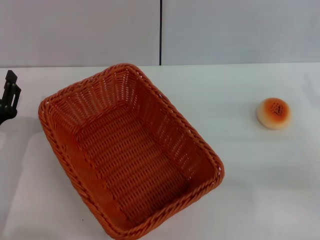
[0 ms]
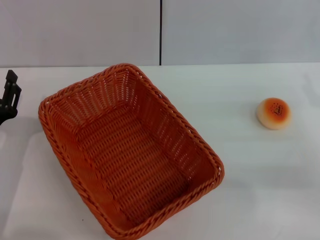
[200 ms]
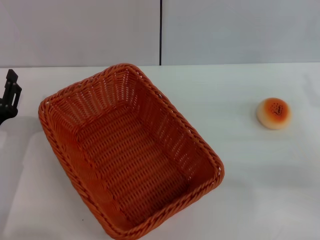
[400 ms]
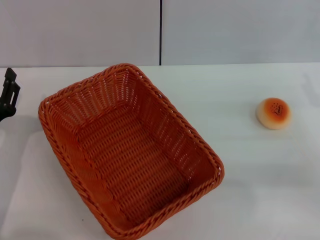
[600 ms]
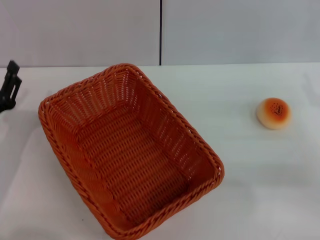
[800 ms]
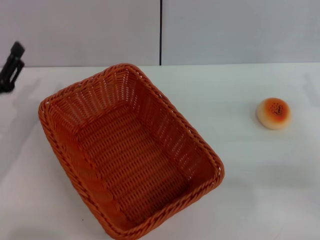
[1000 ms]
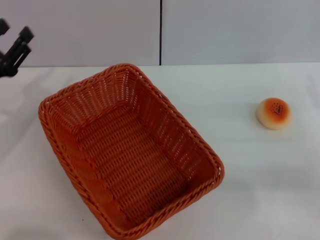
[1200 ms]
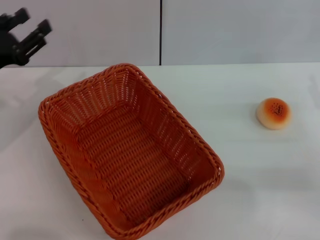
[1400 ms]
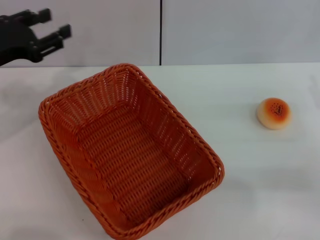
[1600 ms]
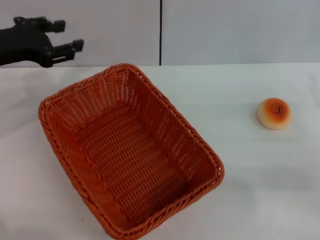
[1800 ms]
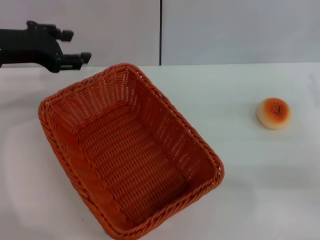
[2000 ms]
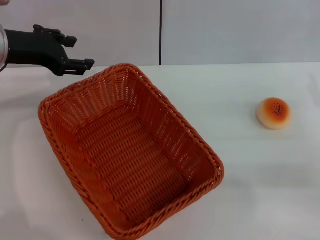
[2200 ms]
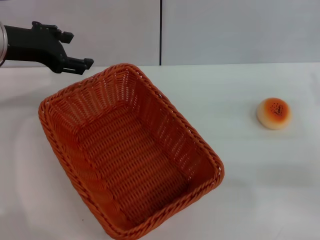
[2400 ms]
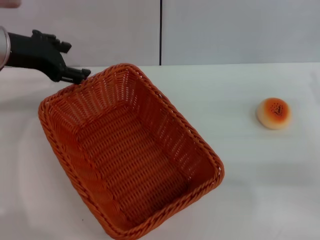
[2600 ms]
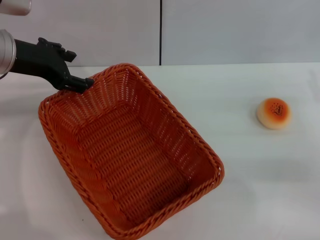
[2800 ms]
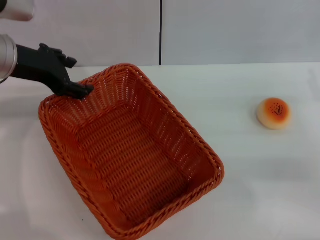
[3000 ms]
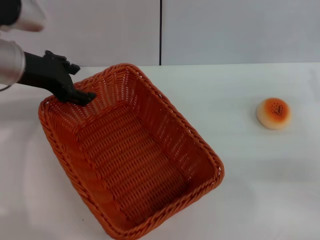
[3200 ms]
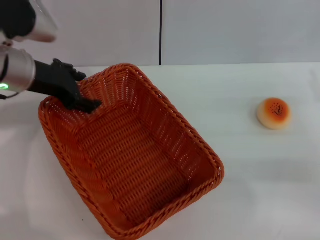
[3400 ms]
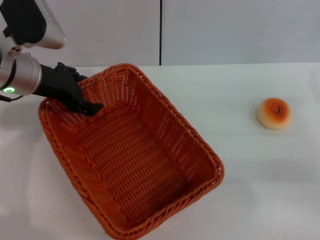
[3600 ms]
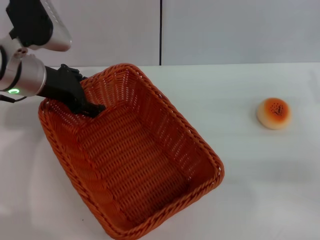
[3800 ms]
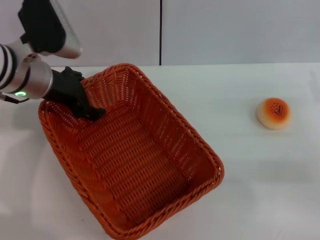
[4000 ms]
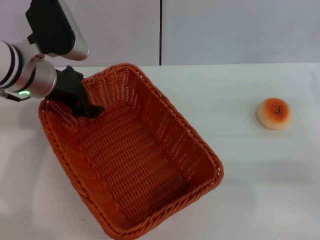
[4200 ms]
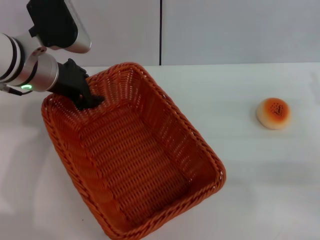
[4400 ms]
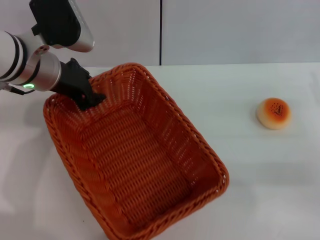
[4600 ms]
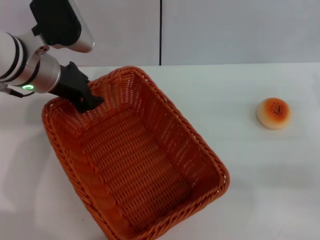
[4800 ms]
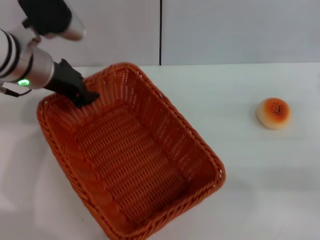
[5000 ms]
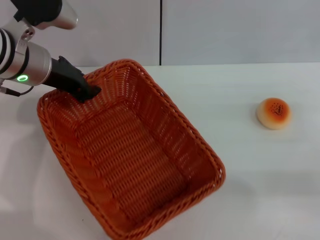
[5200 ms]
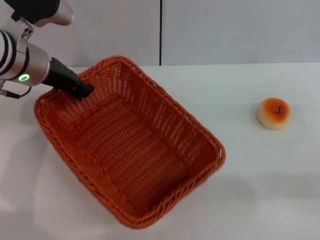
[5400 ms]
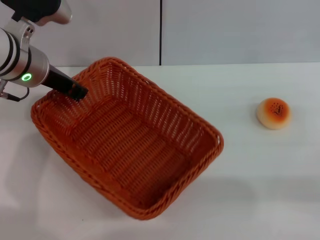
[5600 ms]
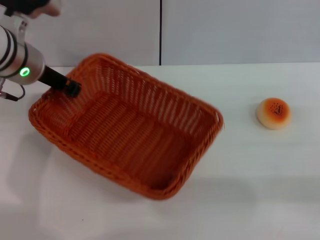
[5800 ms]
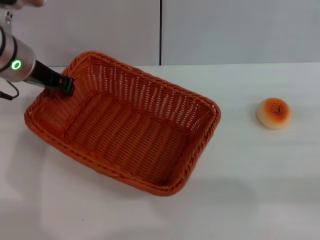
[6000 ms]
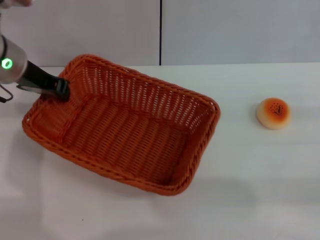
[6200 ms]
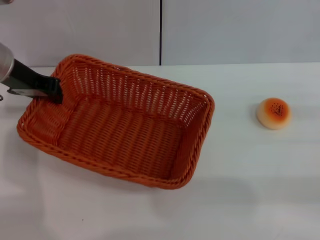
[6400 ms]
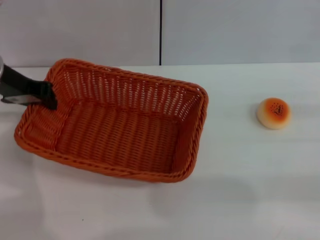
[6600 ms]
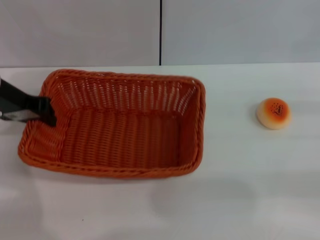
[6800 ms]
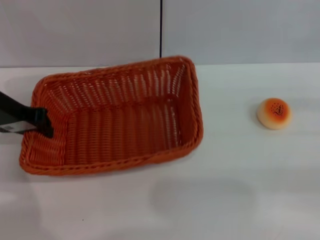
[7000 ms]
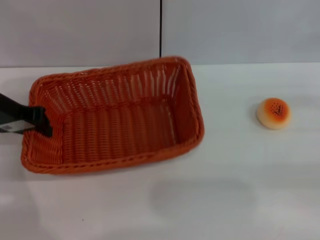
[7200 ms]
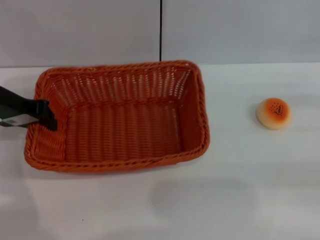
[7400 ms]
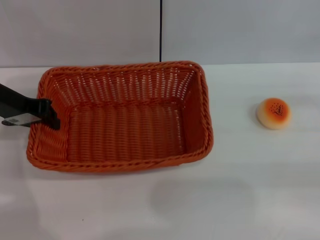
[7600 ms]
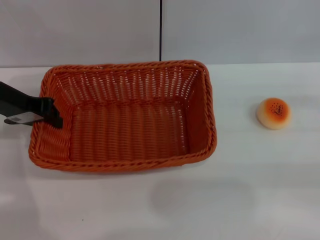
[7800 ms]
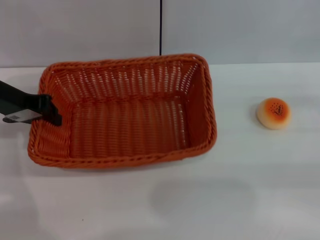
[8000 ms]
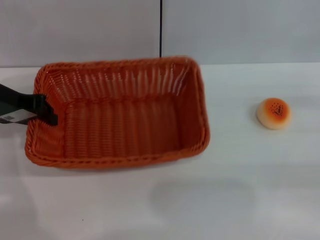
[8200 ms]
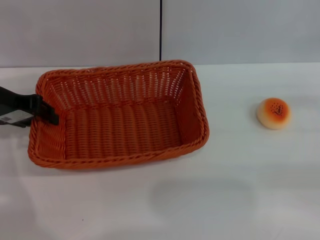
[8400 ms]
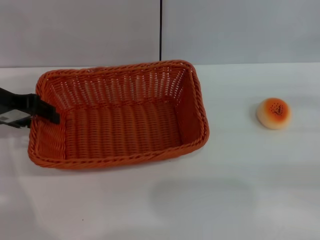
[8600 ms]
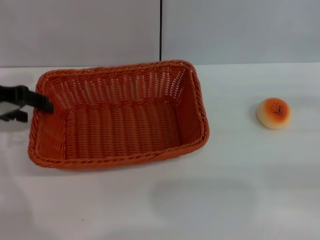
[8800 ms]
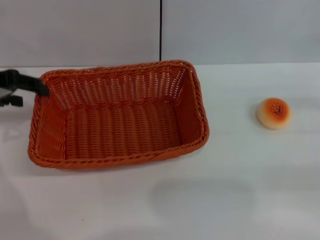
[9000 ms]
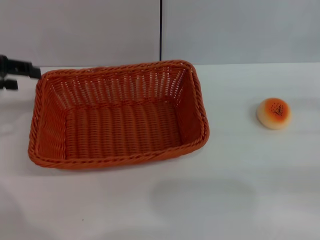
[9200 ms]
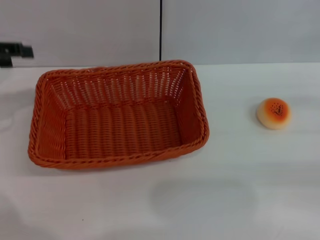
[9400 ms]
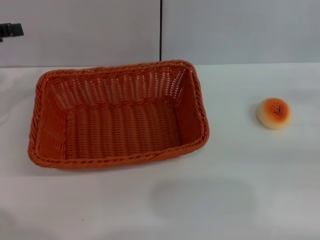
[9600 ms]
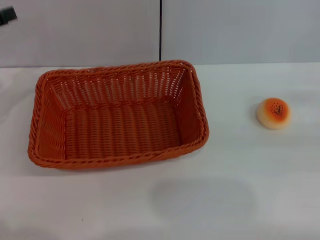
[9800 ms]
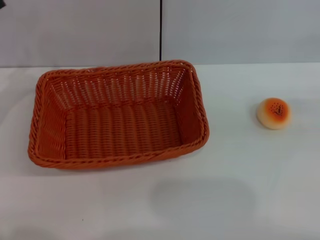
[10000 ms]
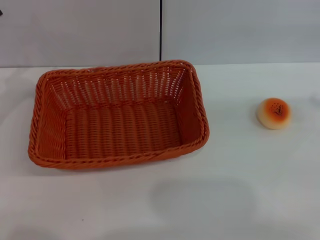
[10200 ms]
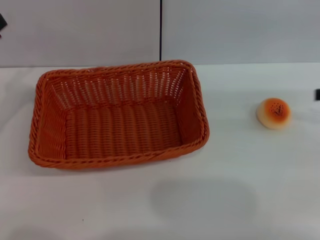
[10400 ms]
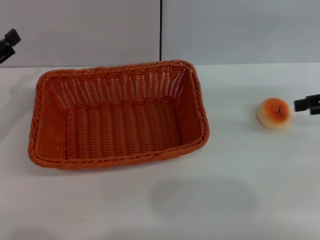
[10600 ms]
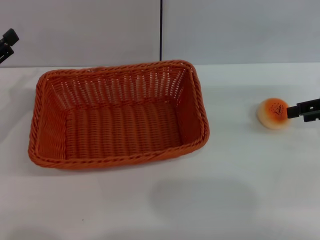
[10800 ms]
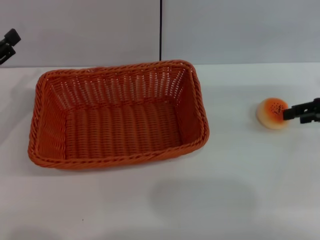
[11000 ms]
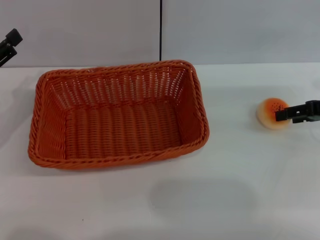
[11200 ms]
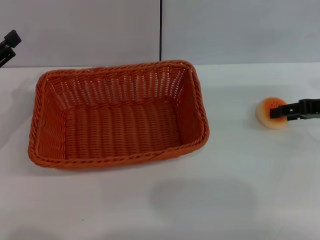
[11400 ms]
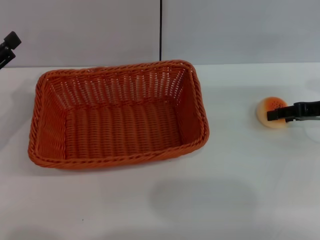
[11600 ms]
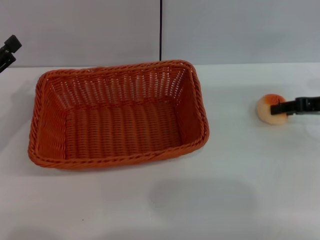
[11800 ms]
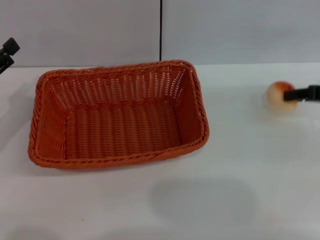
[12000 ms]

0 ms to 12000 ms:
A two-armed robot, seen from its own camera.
Step, 0 ms to 8800 ms: Move the basket to the center of view with the left gripper.
Step, 9000 ms to 12000 ms: Pick up the egg yolk pastry with the right gripper.
0 ms to 1600 ms: The left gripper shifts about 15 cm upward and forward.
1600 ms to 3000 ms: The left gripper heads to the right, covering roughly 5 cm.
3000 ms to 4400 ms: The left gripper ends up approximately 5 cm from where it was.
4400 ms to 6000 ms: The left gripper closes its fingers.
6000 ms to 7600 ms: The left gripper shifts some 5 cm to the left.
7600 ms to 9000 ms: The left gripper shifts about 5 cm to the left, and opens its fingers.
9000 ms to 10400 ms: The left gripper goes roughly 10 cm downward and backward.
10400 ms to 12000 ms: The right gripper goes about 5 cm downward, and closes up.

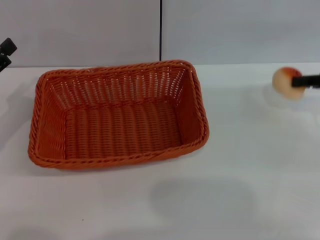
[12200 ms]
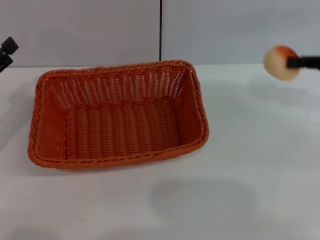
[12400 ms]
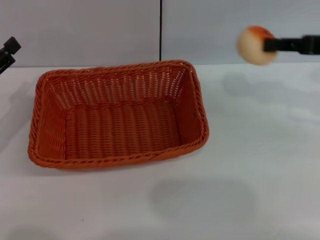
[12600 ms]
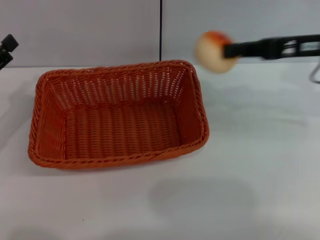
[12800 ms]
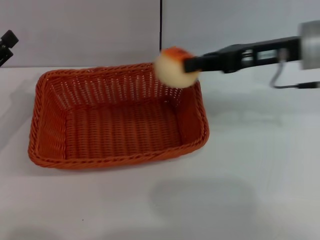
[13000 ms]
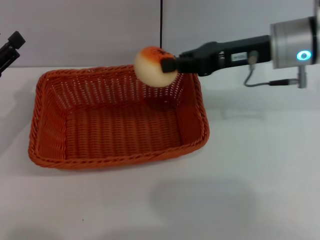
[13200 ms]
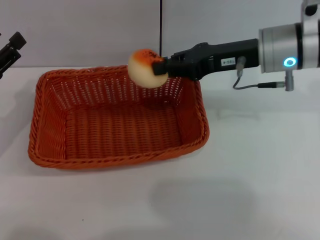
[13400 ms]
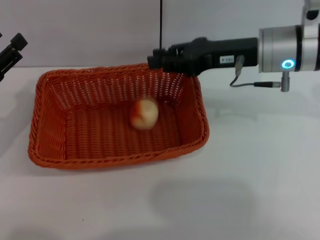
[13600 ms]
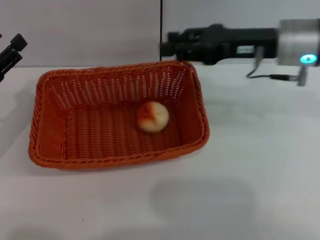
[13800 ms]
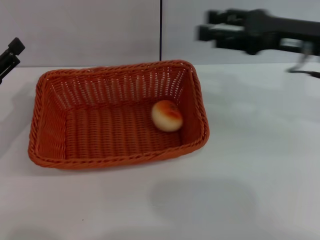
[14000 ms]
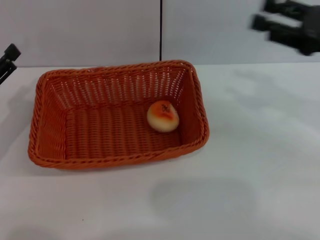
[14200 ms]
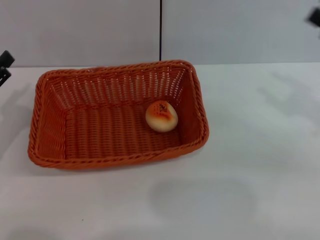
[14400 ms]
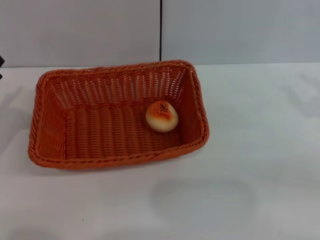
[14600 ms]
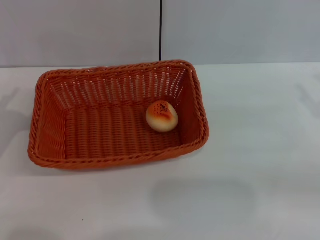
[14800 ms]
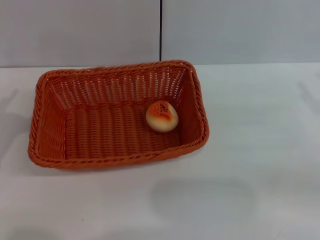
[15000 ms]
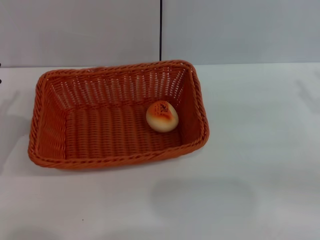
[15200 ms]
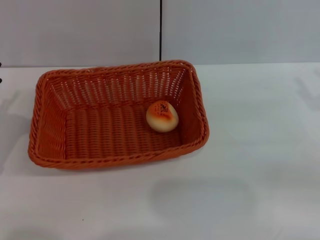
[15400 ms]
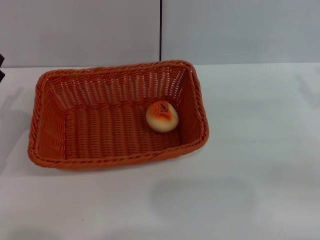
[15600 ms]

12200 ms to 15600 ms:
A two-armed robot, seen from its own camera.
Step, 12200 ms to 13800 ms: Place the egg yolk pastry into the basket with the right gripper.
12200 ms to 13800 ms: The right gripper goes about 15 cm to the left.
13800 ms to 15600 ms: The left gripper changes place by about 5 cm; the right gripper goes approximately 20 cm to the right, backward and downward, and opens its fingers.

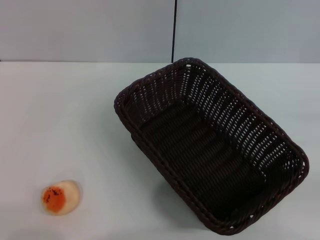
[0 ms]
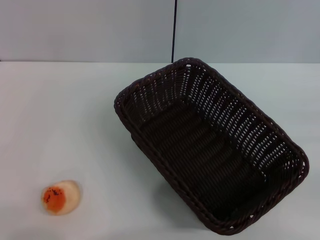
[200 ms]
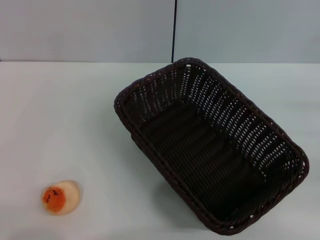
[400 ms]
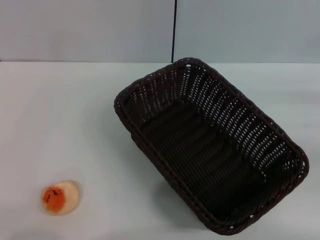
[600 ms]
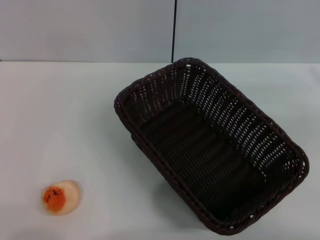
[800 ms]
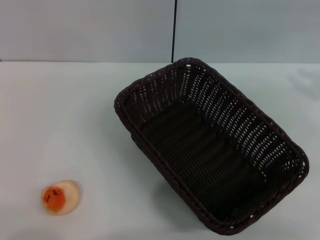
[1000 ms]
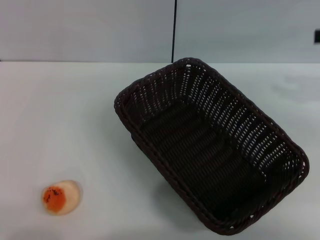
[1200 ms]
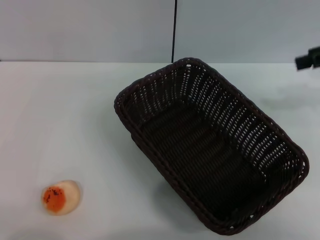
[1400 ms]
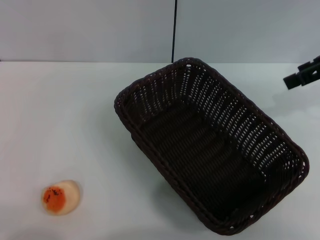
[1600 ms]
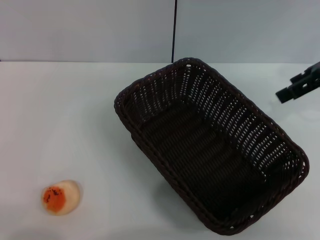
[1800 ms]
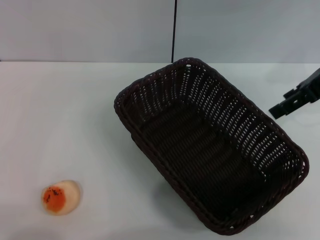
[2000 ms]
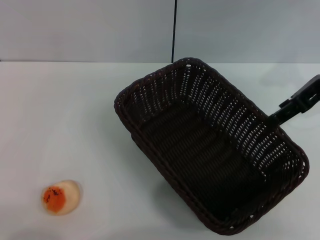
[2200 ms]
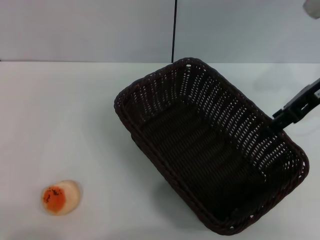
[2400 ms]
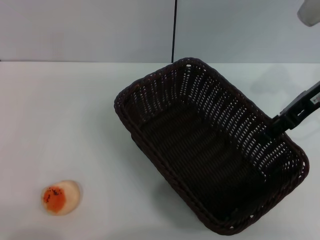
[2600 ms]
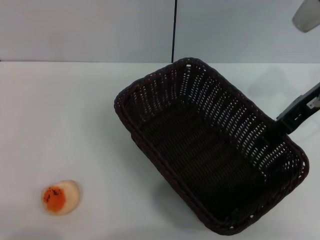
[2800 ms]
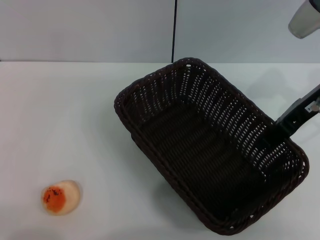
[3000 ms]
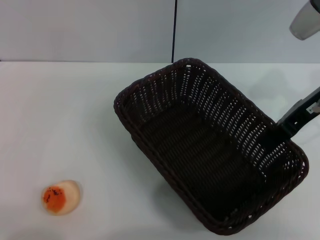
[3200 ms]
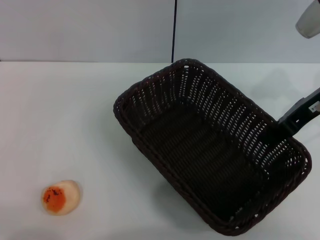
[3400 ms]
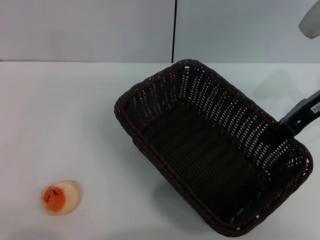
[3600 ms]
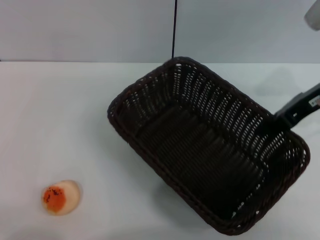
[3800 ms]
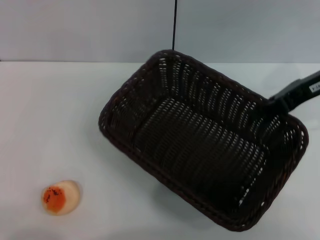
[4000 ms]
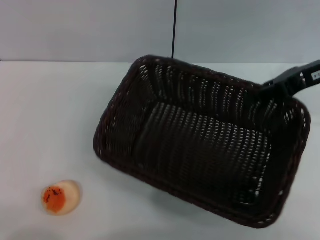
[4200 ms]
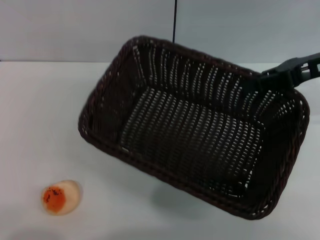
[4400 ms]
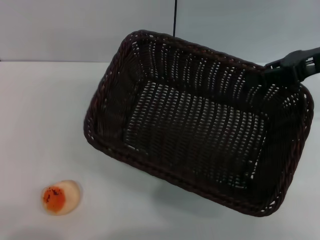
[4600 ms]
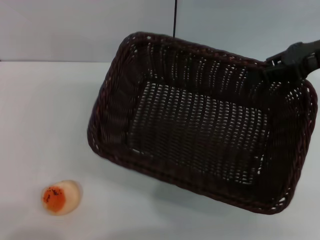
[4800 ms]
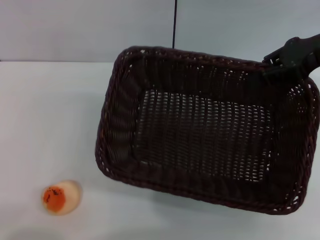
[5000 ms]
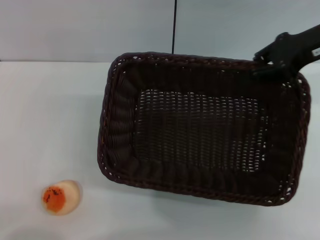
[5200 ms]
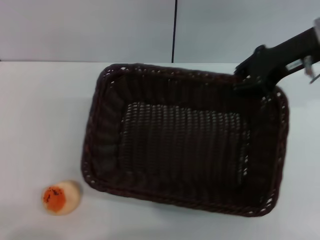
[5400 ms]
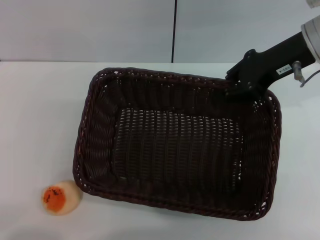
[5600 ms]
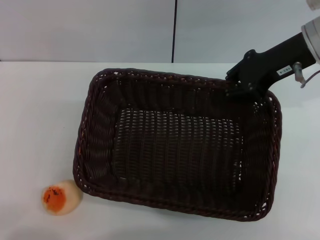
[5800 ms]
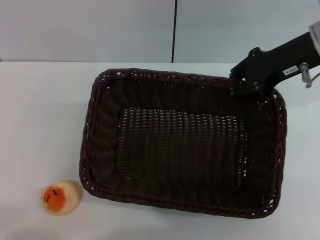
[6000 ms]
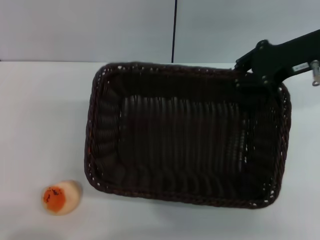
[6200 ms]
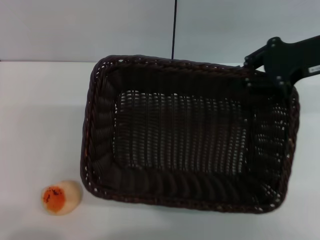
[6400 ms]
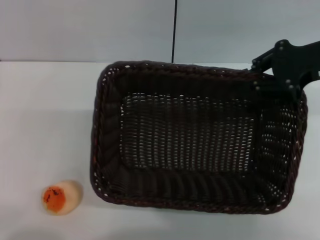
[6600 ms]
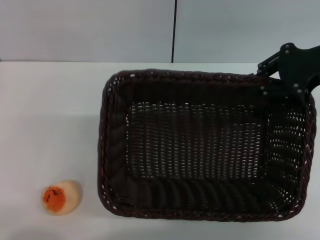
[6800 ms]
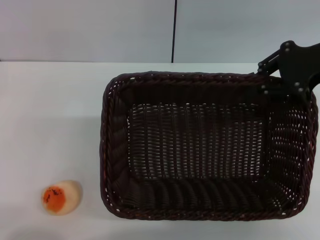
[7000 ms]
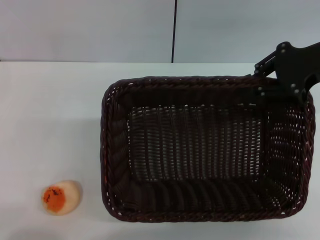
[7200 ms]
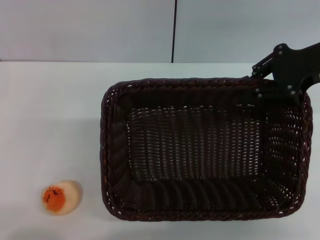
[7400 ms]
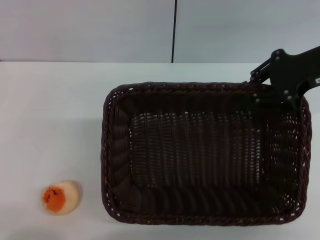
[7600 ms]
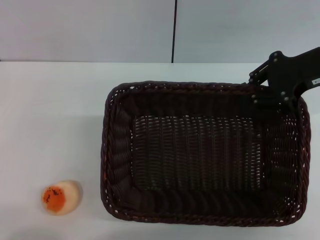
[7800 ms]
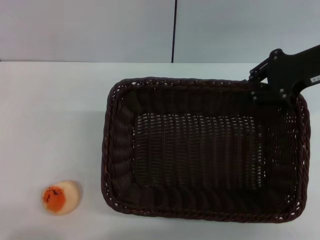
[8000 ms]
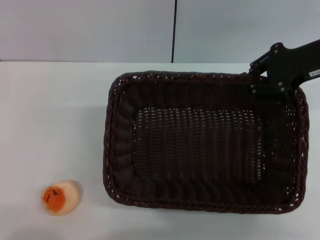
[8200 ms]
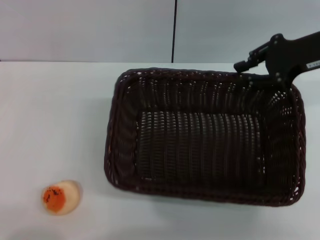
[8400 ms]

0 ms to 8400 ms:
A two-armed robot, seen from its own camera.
0 ms to 1400 ms: The right gripper is displaced upward, forward and to the left by approximately 25 cm.
1400 ms to 2800 ms: The right gripper moves to the left and downward, some 10 cm.
2800 ms to 4200 ms: The right gripper closes up.
4200 ms to 5600 ms: The right gripper goes about 5 cm to the left.
5600 ms to 7000 ms: The right gripper goes roughly 5 cm to the right.
7000 ms to 8400 ms: There are only small adjustments of the grippers.
